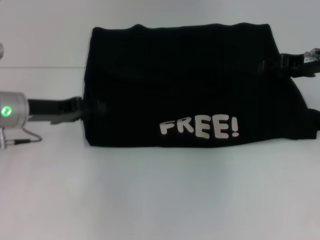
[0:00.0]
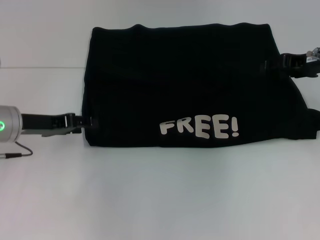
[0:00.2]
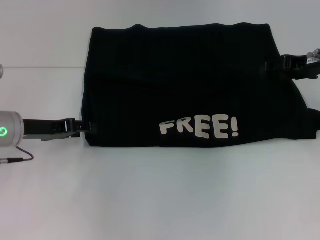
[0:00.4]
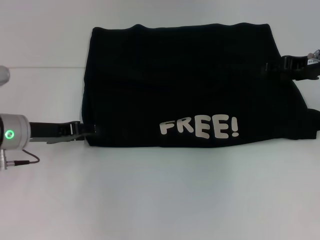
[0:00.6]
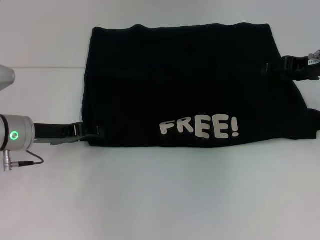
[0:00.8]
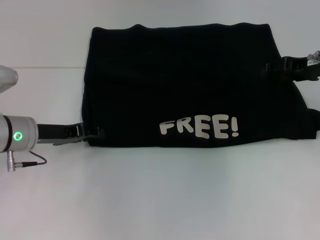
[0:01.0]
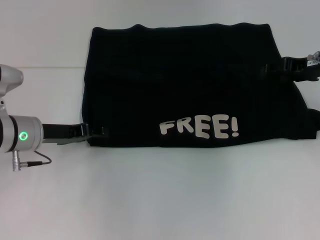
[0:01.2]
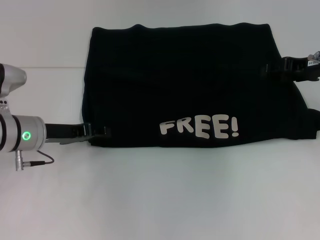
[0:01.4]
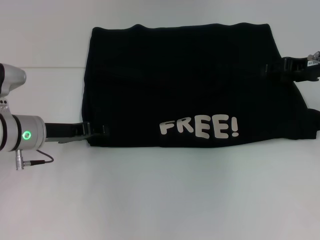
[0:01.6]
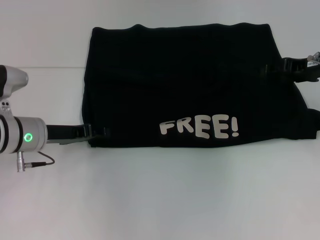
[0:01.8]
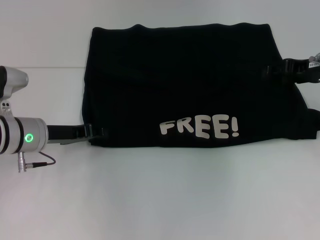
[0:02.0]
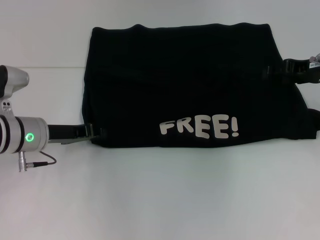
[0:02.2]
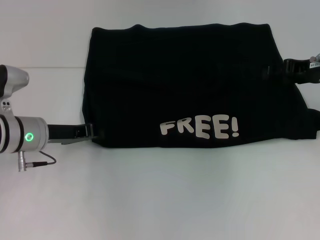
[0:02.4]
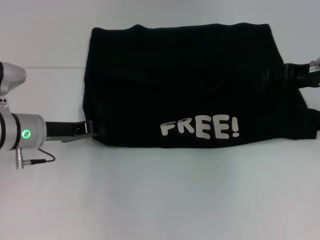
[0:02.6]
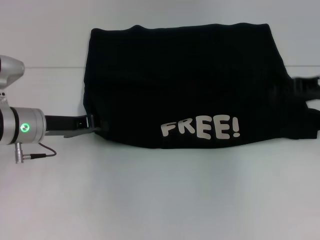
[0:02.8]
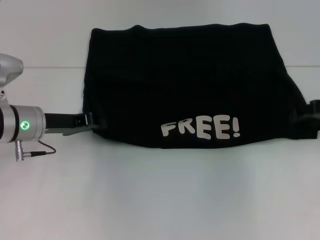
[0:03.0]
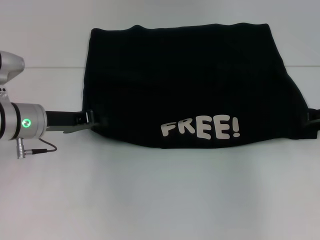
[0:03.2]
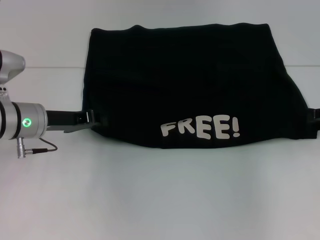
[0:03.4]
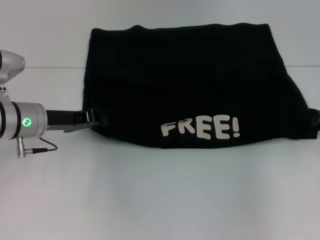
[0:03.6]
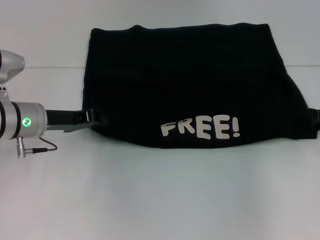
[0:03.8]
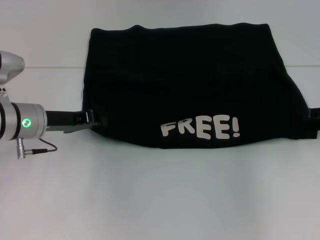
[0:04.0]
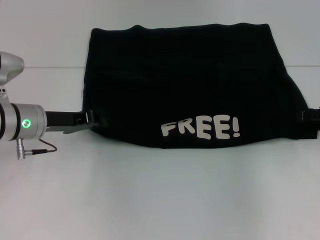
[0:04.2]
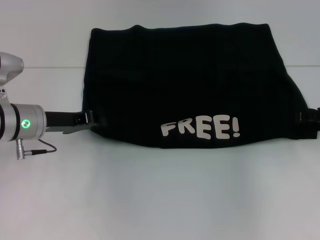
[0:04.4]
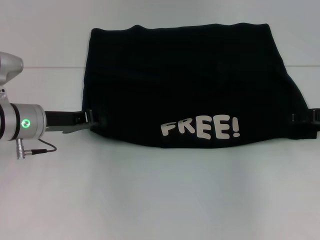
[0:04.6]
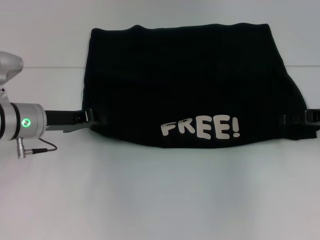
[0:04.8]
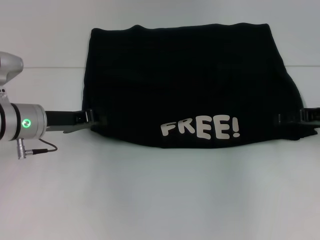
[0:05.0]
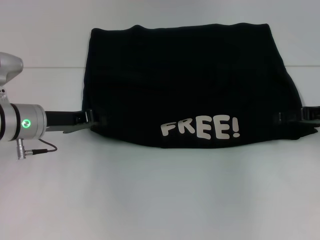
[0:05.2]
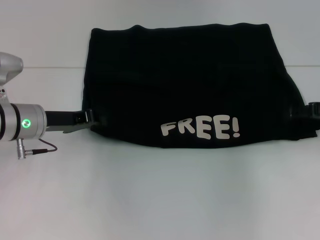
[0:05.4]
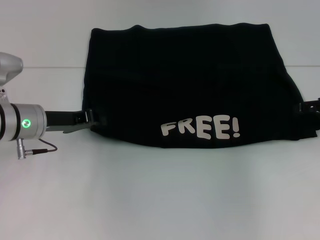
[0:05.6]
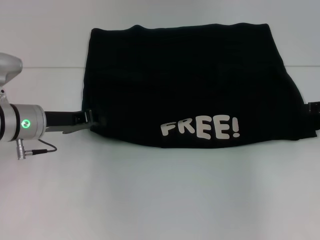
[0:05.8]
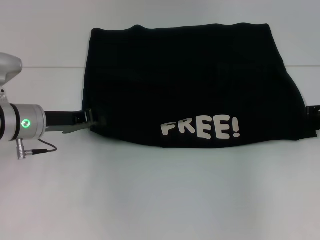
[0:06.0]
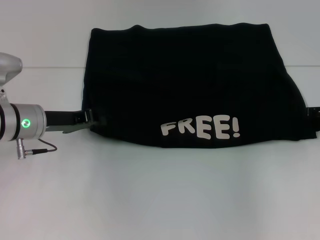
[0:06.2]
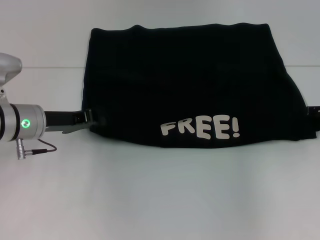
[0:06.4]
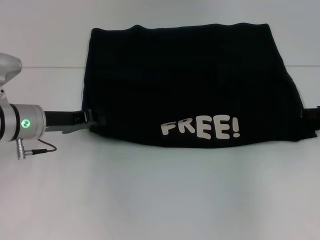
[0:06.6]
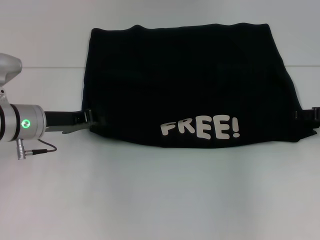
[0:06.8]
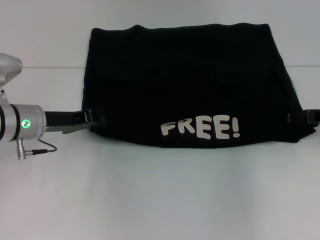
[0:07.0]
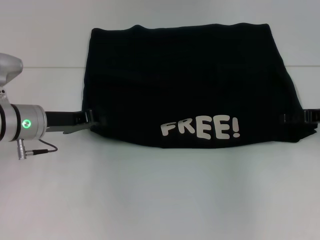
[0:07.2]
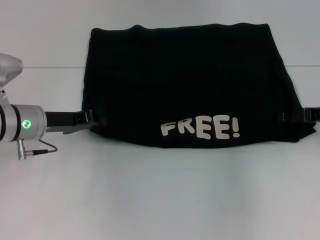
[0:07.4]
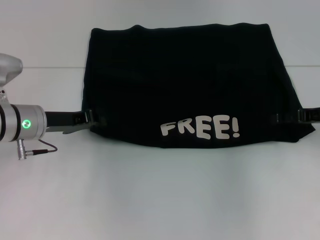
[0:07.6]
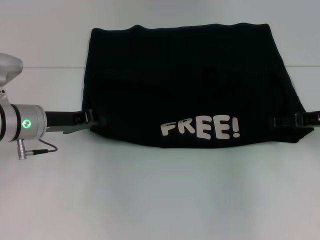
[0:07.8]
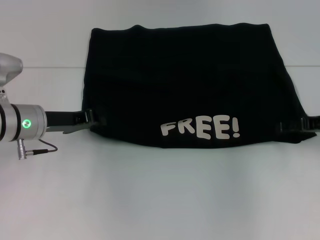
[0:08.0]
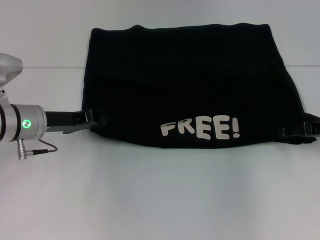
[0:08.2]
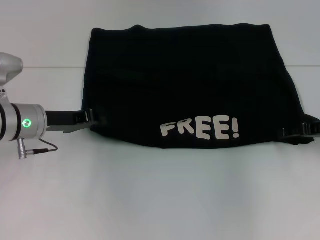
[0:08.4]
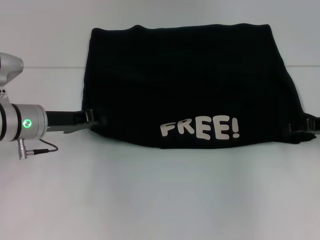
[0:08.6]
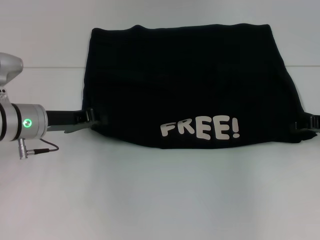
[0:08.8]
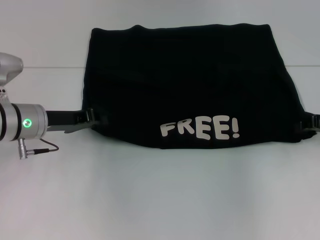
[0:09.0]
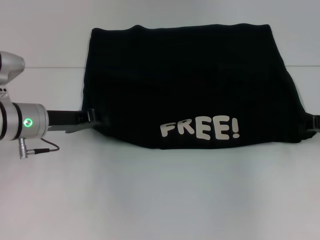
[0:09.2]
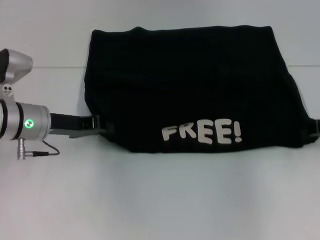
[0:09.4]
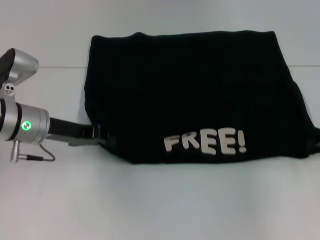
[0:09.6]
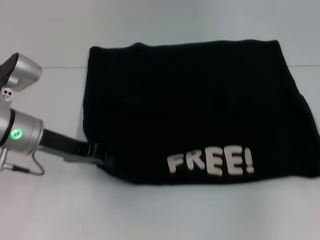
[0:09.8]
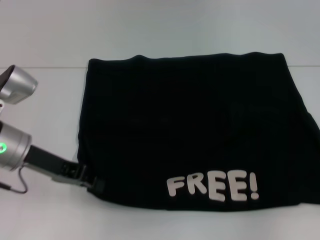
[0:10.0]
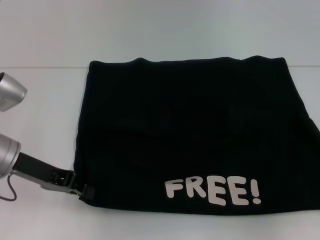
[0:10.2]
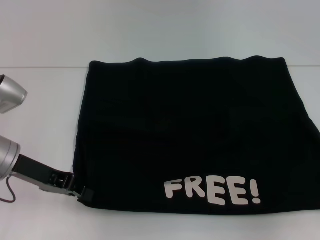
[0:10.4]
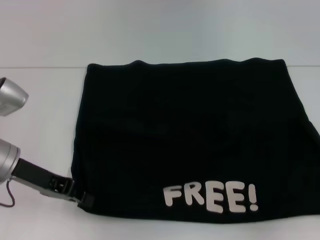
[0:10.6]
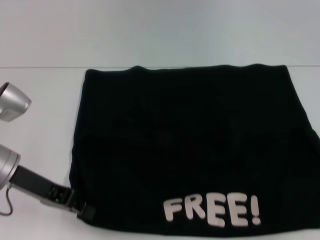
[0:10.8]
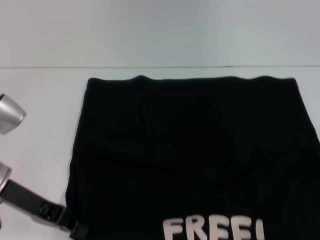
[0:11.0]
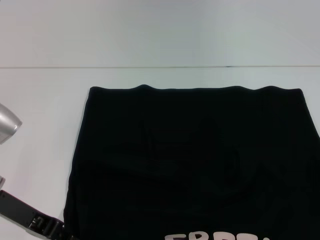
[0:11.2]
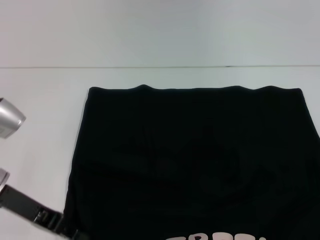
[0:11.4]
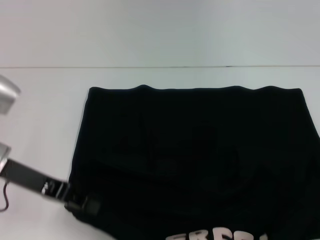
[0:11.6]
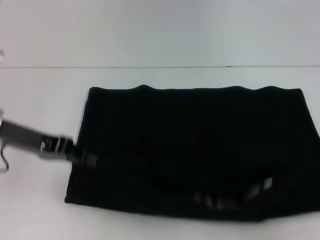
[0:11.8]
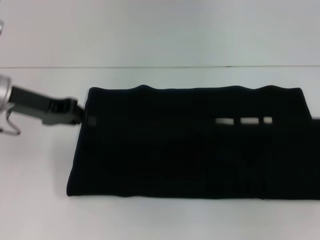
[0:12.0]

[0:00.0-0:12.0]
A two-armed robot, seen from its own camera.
Step, 0:00.0 to 0:11.2: Pull the clothes with your left hand.
Step, 0:00.0 to 0:11.2: Pull the clothes with your right hand.
0:00.0 to 0:01.6: There are only small adjustments of the grippers.
0:01.6 to 0:03.0: The left gripper closes its fingers. Meanwhile the right gripper shifts by approximately 5 cm.
0:03.0 to 0:04.4: The grippers stay close to where they were, moving slightly.
0:06.0 to 0:07.6: The grippers stay close to where they were, moving slightly.
0:07.6 to 0:09.0: The right gripper closes up.
0:09.0 to 0:10.4: The left gripper ends up approximately 5 cm from where it was. The right gripper goes about 10 cm backward and to the right, and closes up.
0:10.4 to 0:12.0: The right gripper moves upward, some 5 cm. Meanwhile the left gripper goes about 10 cm upward and forward.

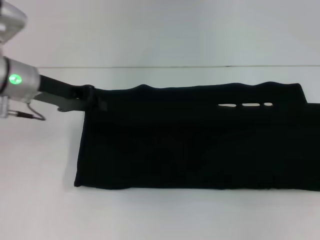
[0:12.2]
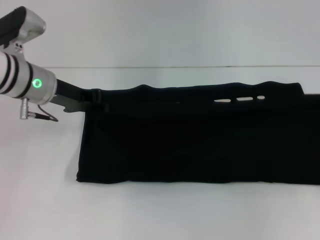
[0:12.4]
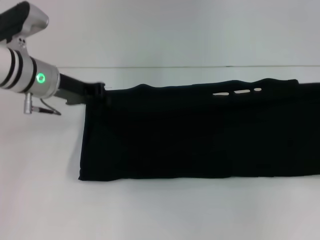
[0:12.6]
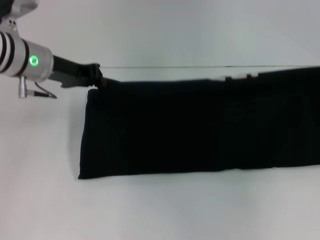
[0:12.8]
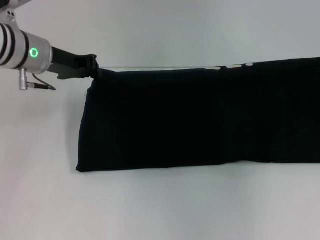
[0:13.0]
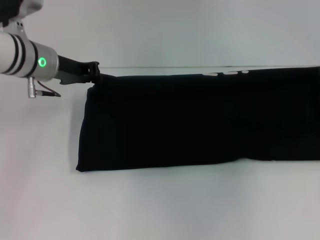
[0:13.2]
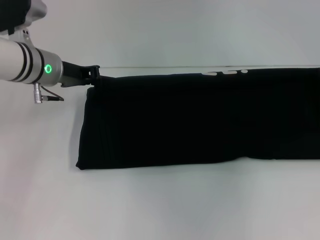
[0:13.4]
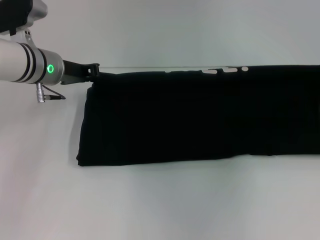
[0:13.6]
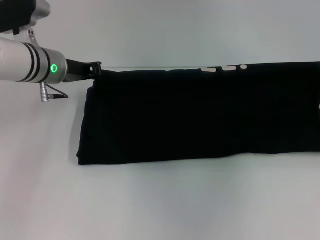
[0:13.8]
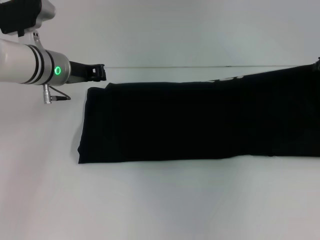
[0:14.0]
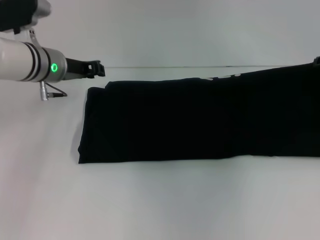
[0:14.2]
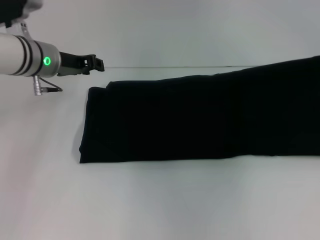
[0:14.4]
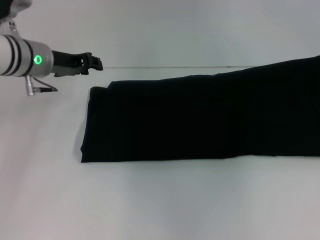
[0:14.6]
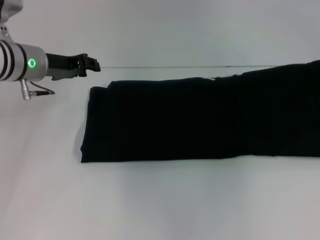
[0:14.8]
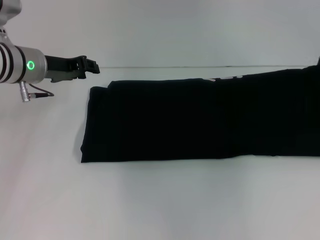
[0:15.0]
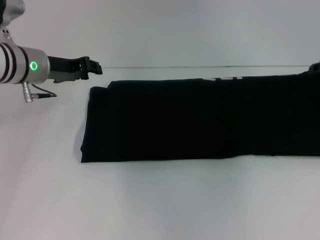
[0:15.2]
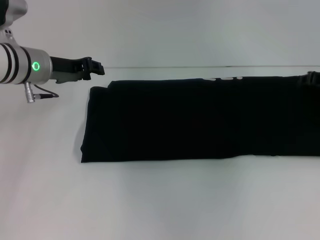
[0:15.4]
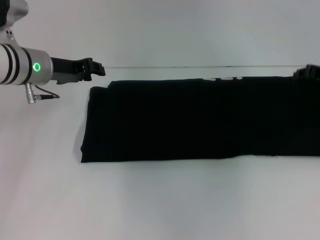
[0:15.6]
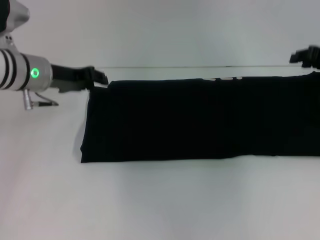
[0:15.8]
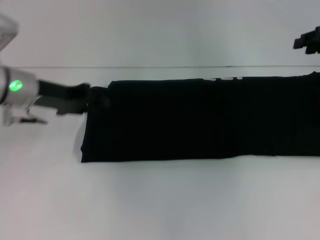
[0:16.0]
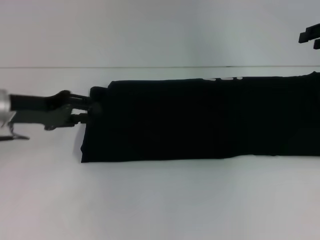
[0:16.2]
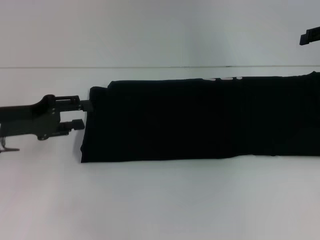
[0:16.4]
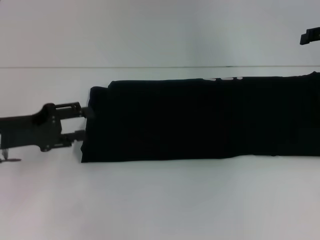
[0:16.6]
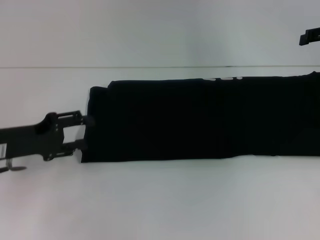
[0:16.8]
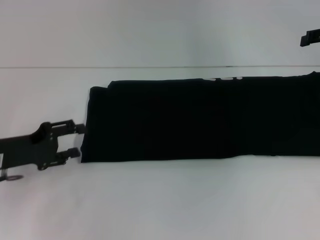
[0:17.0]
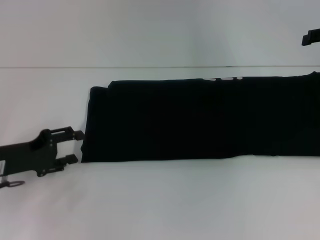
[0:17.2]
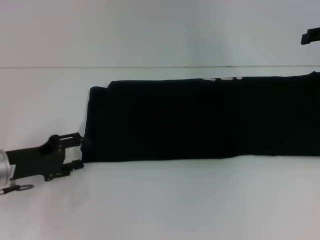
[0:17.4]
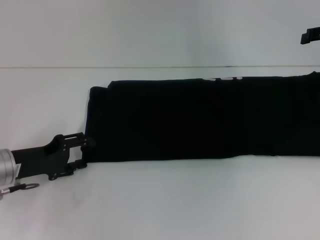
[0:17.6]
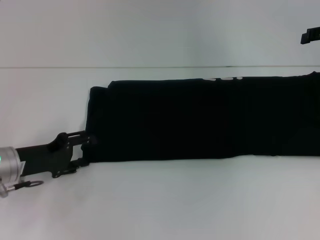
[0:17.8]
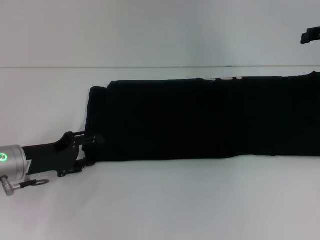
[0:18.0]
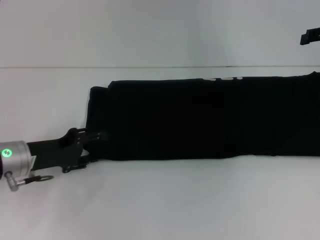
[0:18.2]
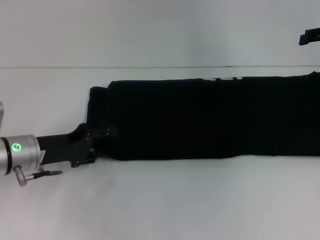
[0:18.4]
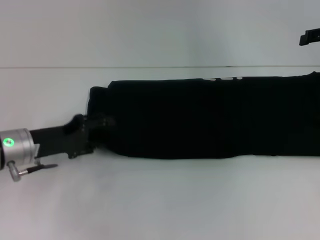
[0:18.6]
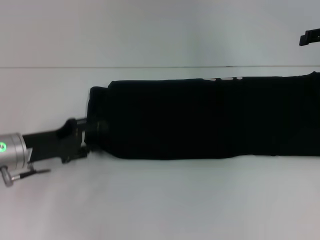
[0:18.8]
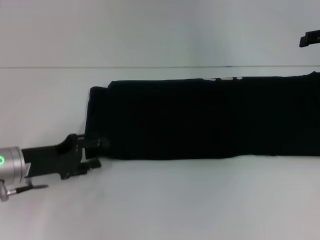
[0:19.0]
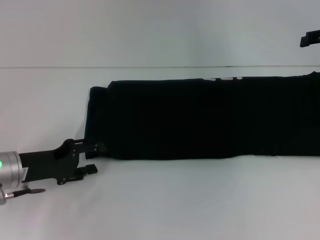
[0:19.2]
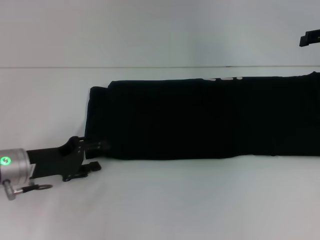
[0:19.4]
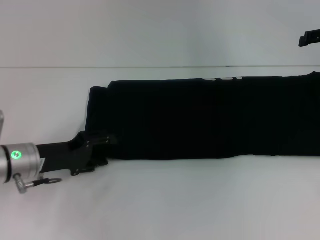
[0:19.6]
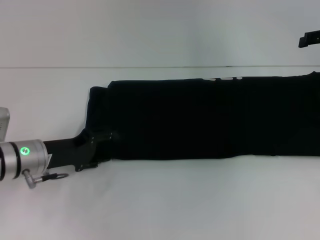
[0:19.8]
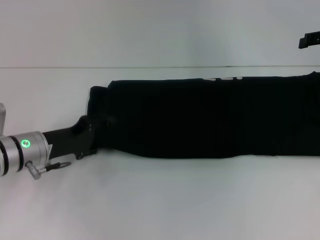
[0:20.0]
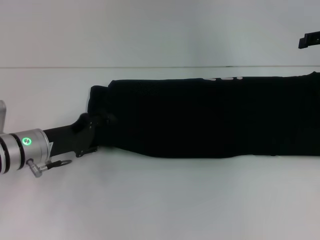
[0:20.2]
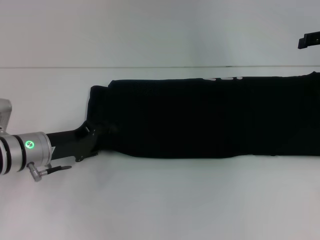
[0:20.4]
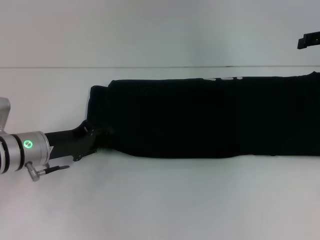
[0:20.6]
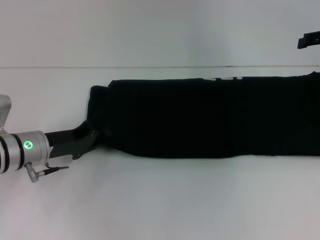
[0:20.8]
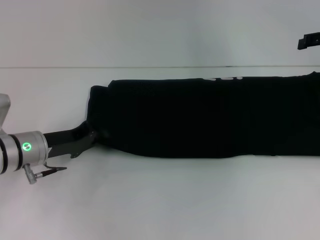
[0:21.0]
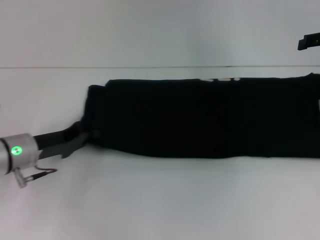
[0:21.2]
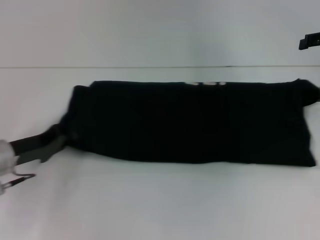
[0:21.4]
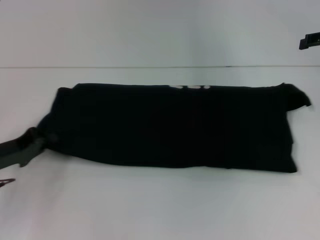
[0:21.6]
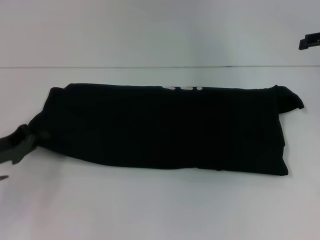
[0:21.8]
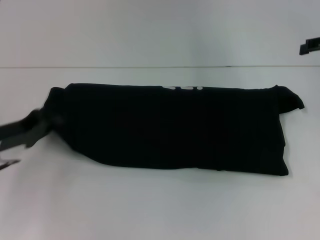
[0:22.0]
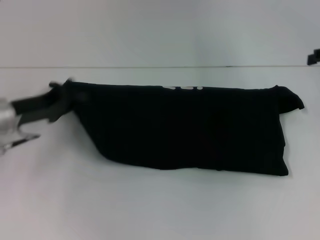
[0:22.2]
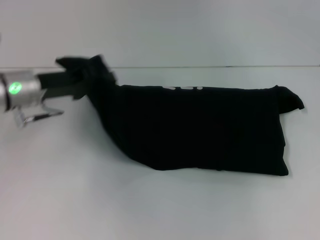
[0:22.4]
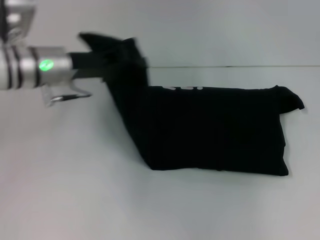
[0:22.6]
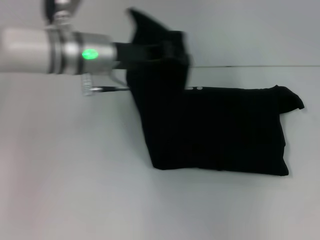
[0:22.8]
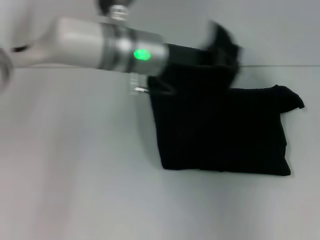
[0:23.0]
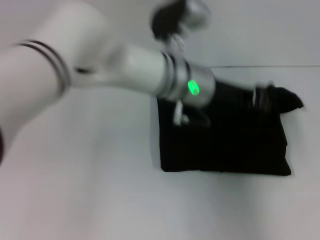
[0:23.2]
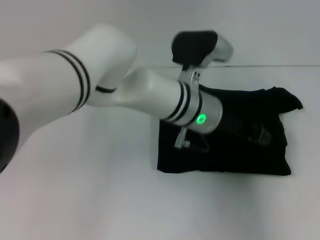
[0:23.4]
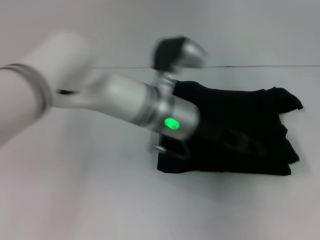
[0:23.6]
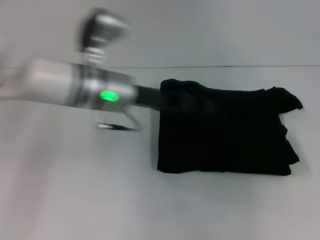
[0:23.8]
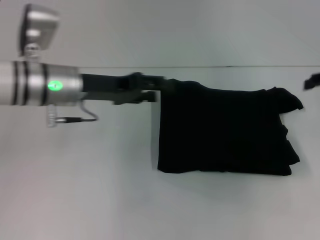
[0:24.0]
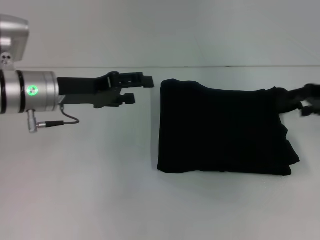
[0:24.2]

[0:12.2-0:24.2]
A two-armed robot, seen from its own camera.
Step, 0:12.2 to 0:15.6: Fold the clothes with your right hand.
Step, 0:12.2 to 0:23.6: Fold the clothes with your left hand.
0:12.2 to 0:13.8: The right gripper shifts approximately 15 cm forward and to the left. The left gripper ends up roughly 5 cm from where it was.
0:13.8 to 0:15.2: The left gripper opens.
0:15.2 to 0:16.6: The right gripper moves upward, roughly 10 cm, and opens, while the left gripper is displaced backward and to the left by roughly 15 cm.
0:16.6 to 0:18.2: The left gripper is displaced downward by some 5 cm.
0:18.2 to 0:19.8: The grippers move only a little.
0:19.8 to 0:21.2: The left gripper closes its fingers.
0:21.2 to 0:22.6: The right gripper shifts approximately 5 cm to the right, while the left gripper shifts about 15 cm upward, forward and to the right.
0:22.6 to 0:24.2: The left gripper reaches about 20 cm to the right, then returns, and opens up; the right gripper moves to the left, about 5 cm.
